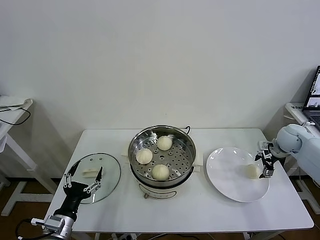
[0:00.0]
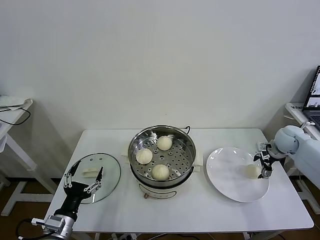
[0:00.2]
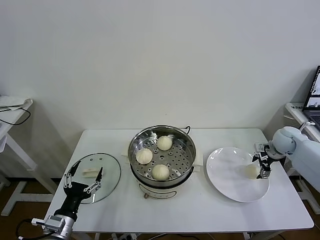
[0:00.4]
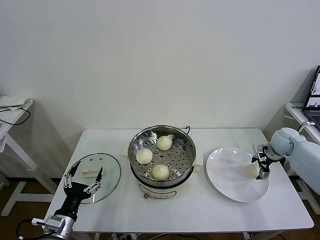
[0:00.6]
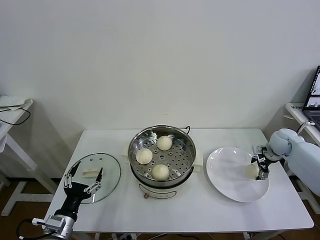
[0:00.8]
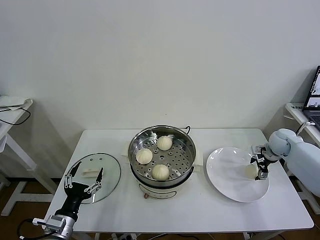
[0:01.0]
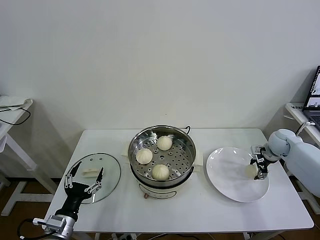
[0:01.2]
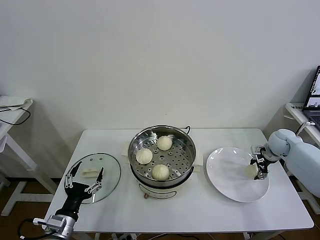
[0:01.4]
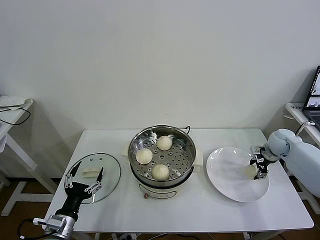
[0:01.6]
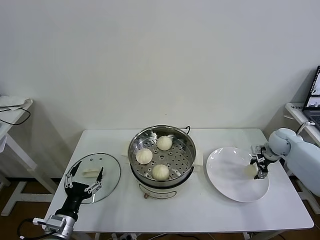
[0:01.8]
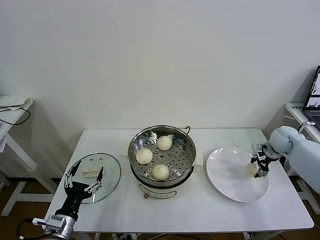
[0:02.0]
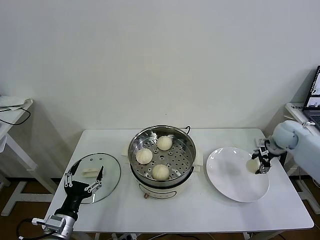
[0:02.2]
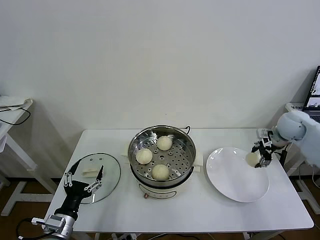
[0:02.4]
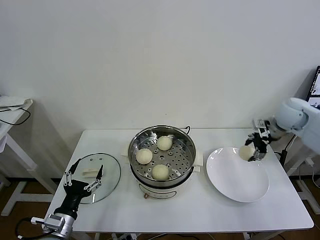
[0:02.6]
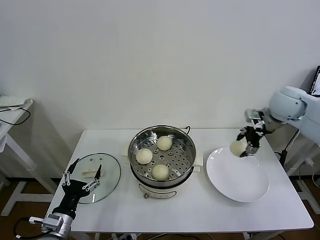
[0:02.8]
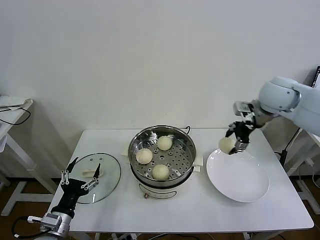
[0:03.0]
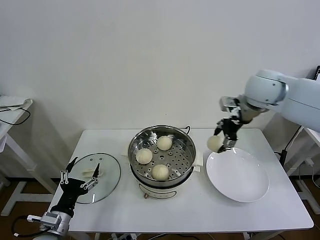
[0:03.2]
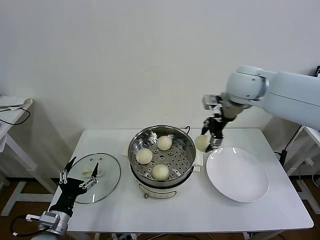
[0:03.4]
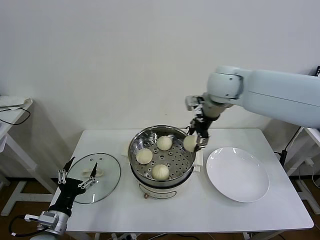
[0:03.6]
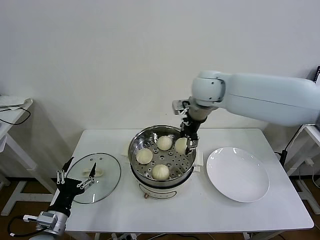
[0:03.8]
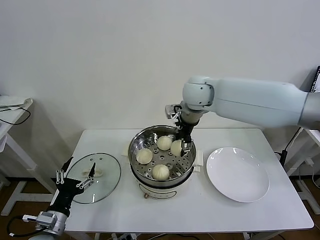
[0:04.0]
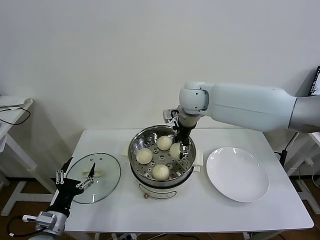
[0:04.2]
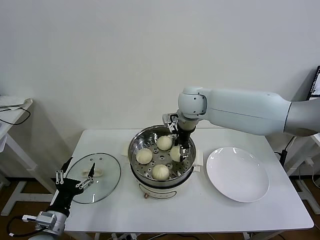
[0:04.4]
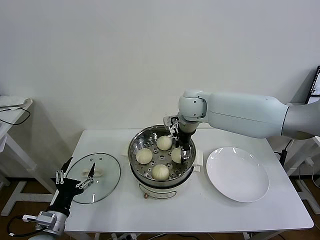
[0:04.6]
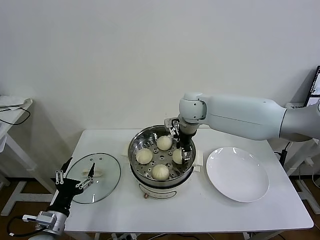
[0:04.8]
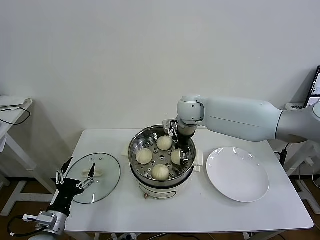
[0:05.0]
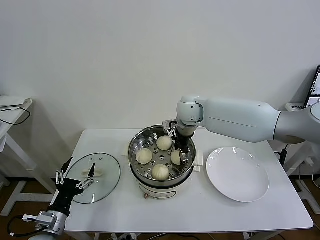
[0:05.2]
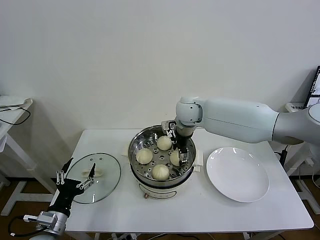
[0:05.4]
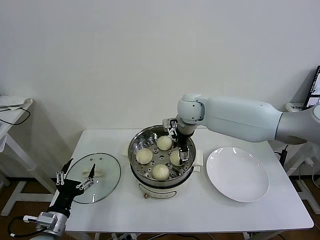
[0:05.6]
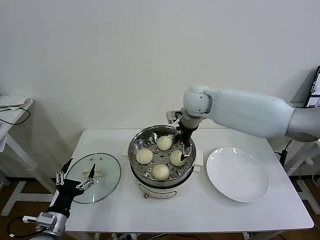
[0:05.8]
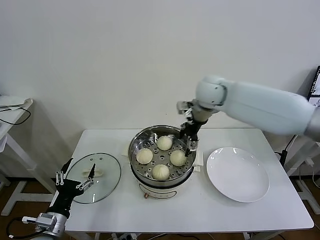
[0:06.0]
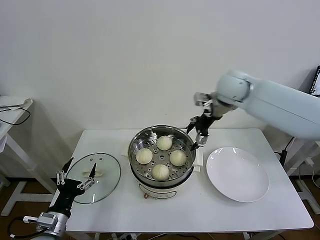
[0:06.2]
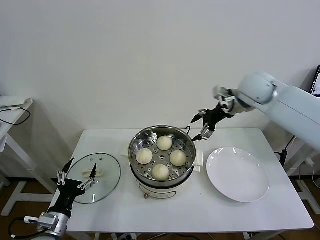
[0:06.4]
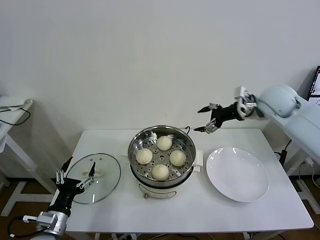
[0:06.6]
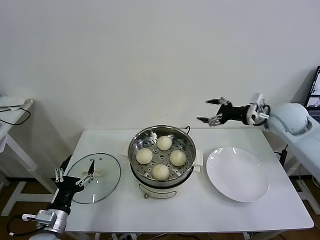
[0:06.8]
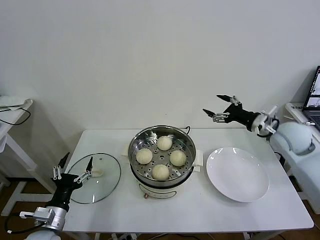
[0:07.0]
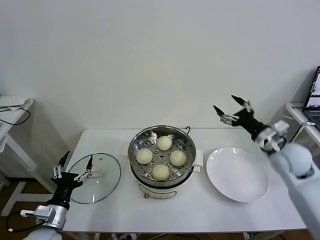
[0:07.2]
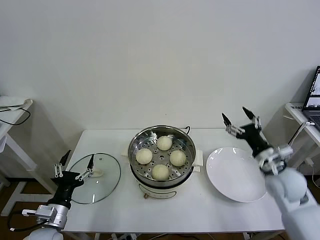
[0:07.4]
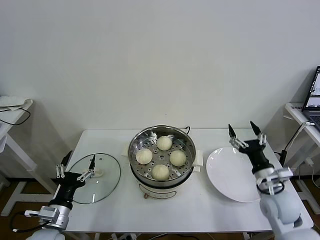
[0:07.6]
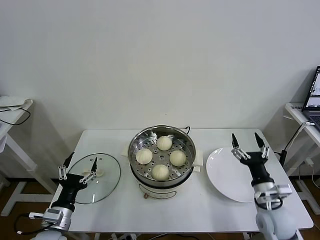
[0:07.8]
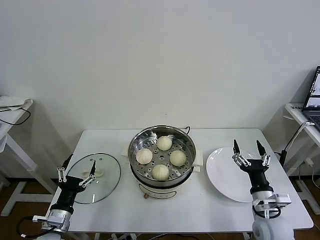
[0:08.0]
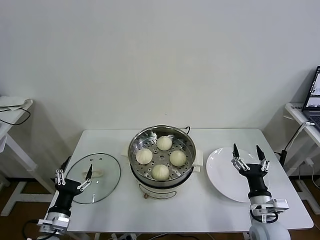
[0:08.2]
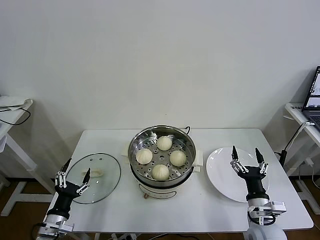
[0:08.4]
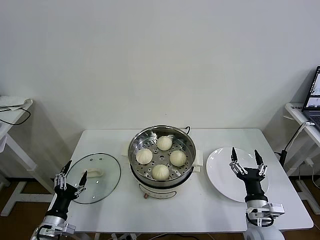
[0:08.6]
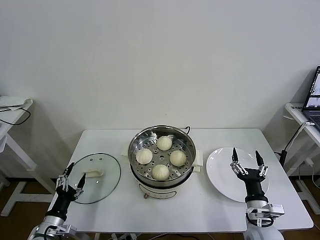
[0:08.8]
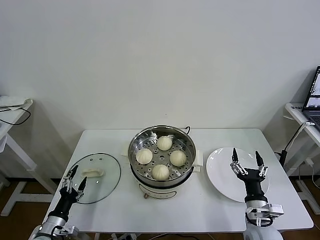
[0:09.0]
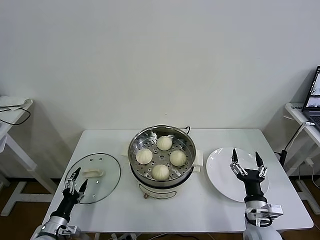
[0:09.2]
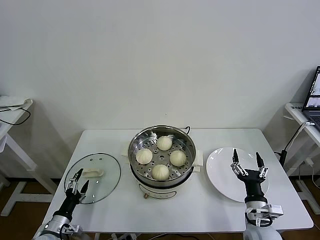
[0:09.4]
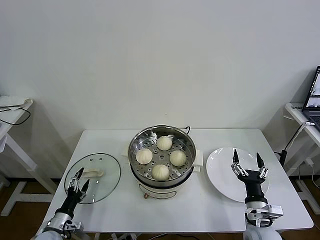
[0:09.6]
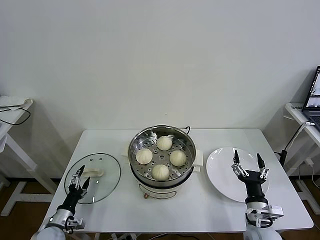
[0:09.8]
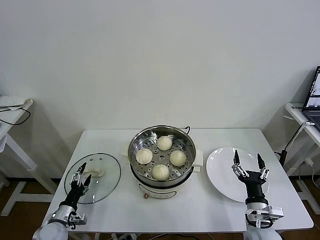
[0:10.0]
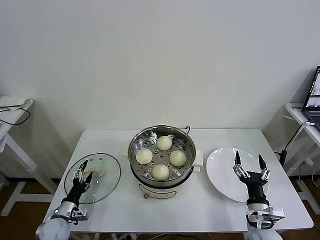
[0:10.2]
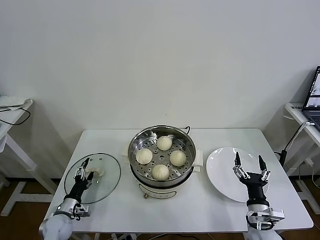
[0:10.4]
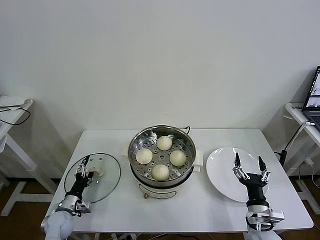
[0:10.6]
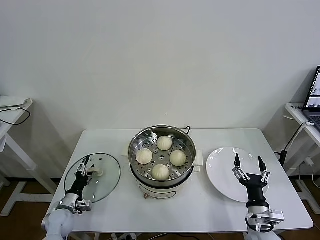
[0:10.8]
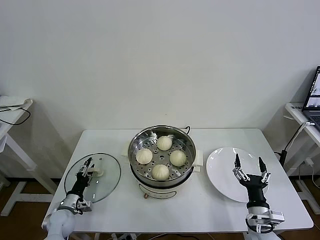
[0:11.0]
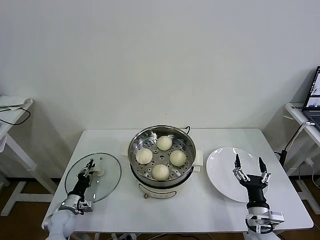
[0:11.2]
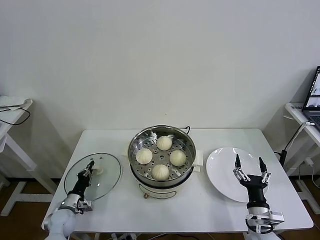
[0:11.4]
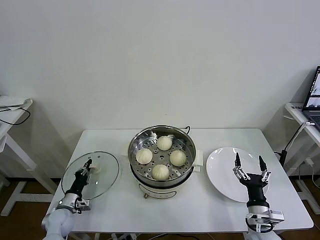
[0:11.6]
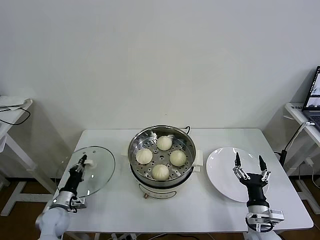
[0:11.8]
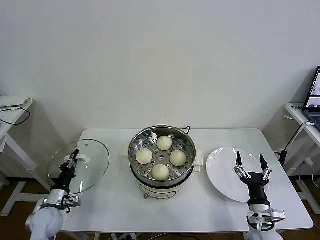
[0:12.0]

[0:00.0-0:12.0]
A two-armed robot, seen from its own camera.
Task of the whole recording: take steamed baozi put them in steamer then cover it.
Step, 0:01.6 to 0:05.6: Place the baozi on the steamer with right gripper.
Step, 0:05.8 to 0:11.6: Grasp the pot lid with left gripper.
0:00.0 to 0:01.6: The right gripper closes up.
0:01.6 to 0:03.0: The right gripper shifts about 30 cm upward and to the left.
0:03.0 to 0:04.4: The right gripper is displaced to the left by approximately 20 cm.
0:04.4 to 0:06.0: The right gripper goes about 5 cm to the right, and opens its fingers.
0:06.0 to 0:07.6: The right gripper is displaced backward, downward and to the right by about 40 cm.
0:07.6 to 0:09.0: The right gripper is displaced downward and backward by about 10 cm. Meanwhile the left gripper travels downward and to the left by approximately 10 cm.
0:09.0 to 0:10.4: The left gripper heads forward, covering roughly 10 cm.
0:10.4 to 0:12.0: The left gripper goes roughly 5 cm upward, and closes its fingers.

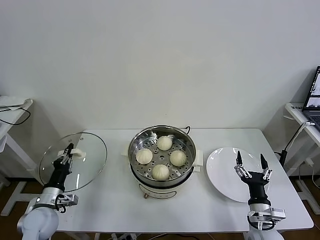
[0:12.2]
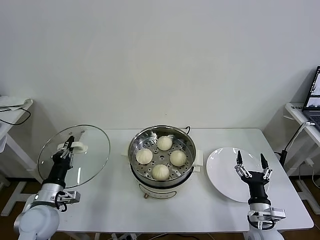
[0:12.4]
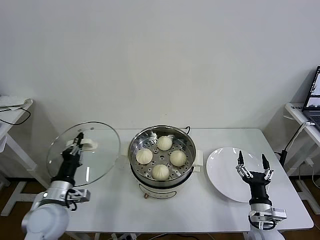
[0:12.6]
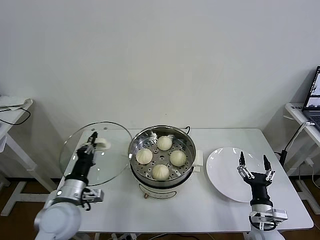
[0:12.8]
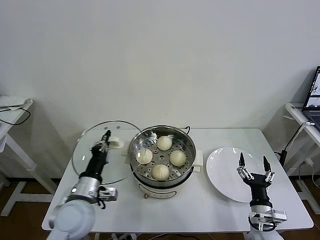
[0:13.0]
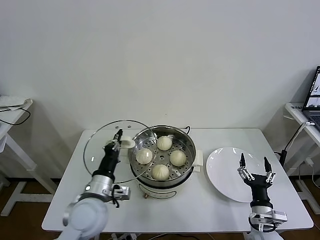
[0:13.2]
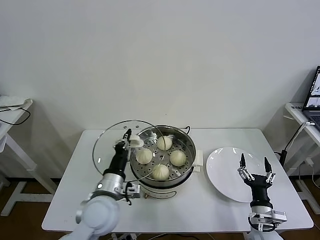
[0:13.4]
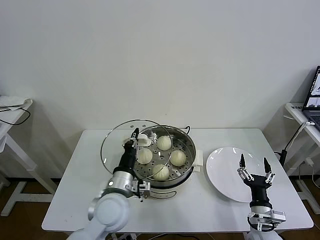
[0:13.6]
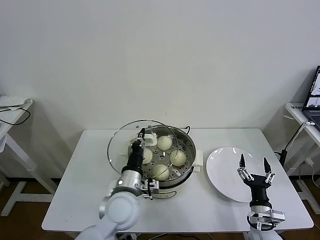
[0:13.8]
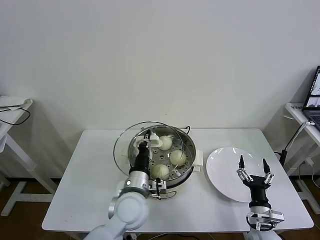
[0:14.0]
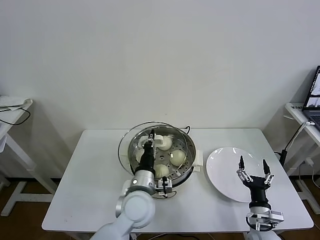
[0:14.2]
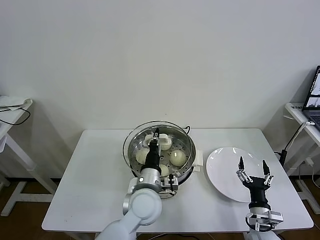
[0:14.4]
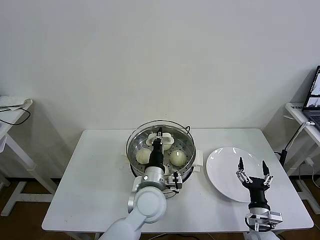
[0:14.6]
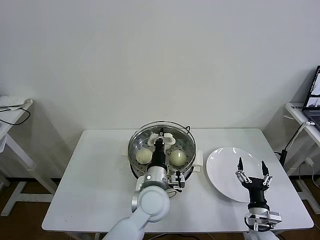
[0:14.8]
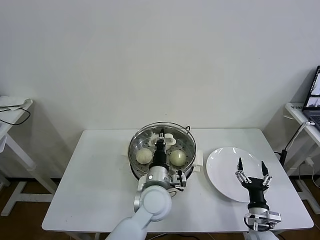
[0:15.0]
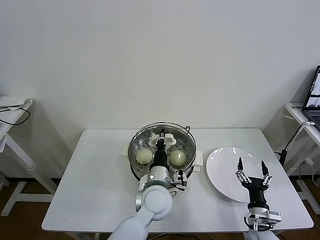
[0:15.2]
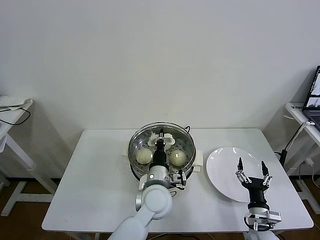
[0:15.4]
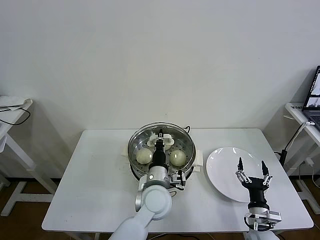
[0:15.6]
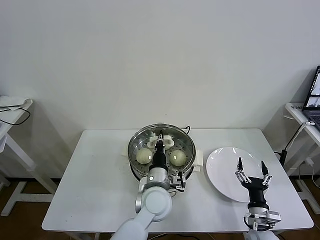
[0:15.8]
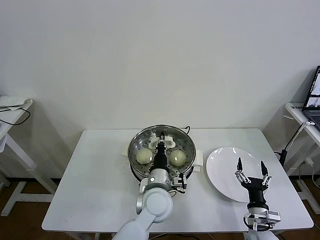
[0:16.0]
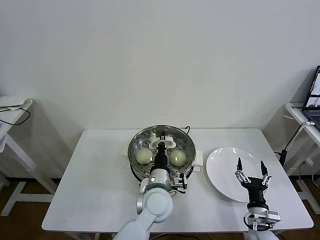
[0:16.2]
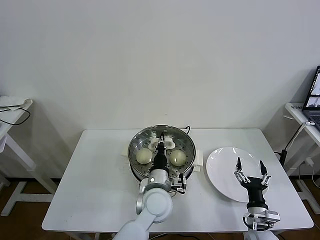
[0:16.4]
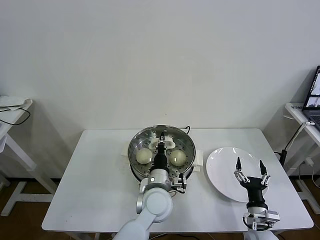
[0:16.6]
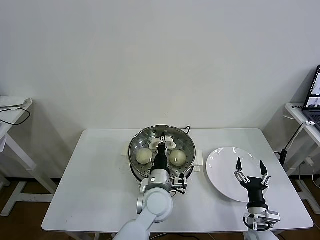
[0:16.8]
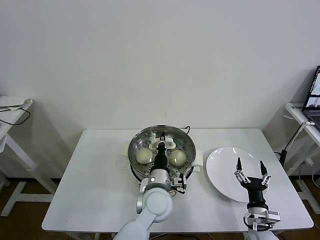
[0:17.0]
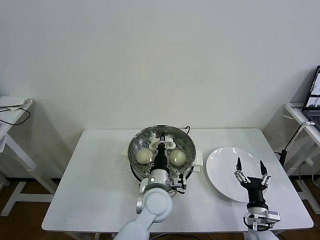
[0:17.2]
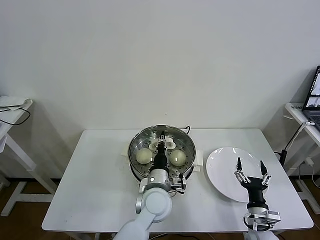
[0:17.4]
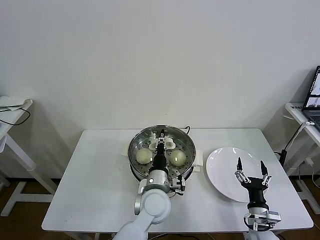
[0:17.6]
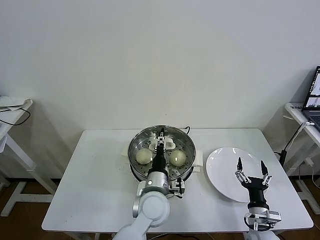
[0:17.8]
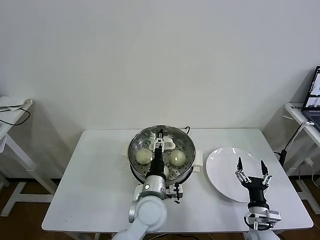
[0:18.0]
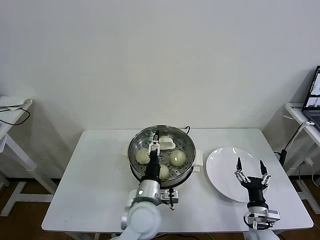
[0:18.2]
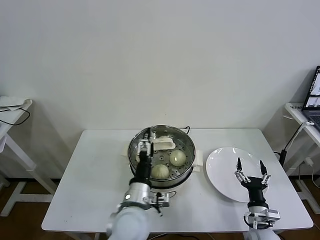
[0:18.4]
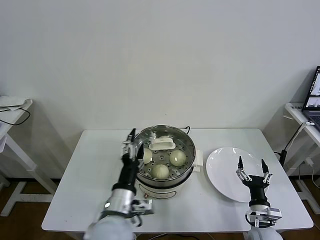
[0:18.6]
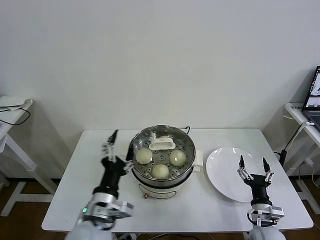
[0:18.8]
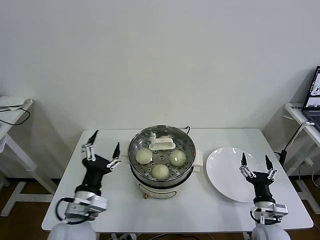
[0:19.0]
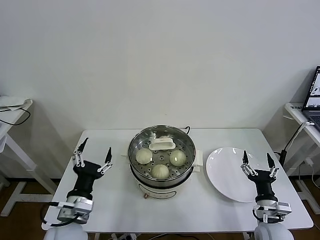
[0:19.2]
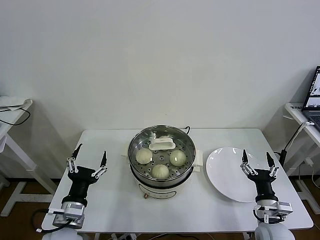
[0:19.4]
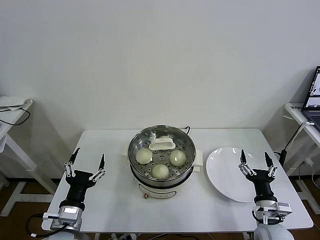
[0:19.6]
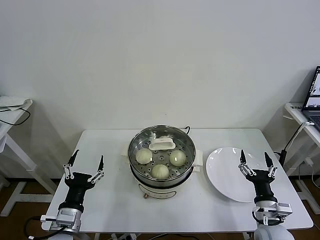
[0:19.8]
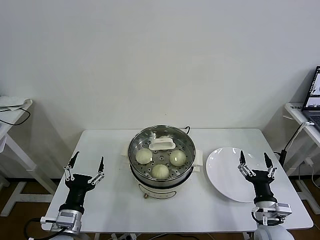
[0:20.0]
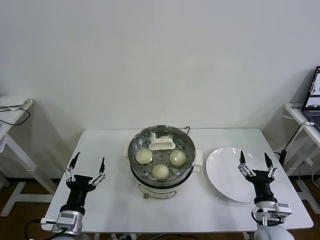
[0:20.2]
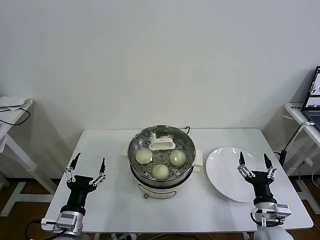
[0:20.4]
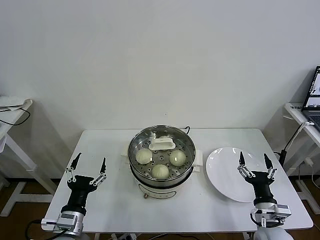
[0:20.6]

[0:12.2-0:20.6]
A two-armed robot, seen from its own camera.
Task of the whole recording: take steamed baozi put them in steamer then cover it.
Step, 0:12.2 to 0:18.2: Place the pot lid on the steamer with left gripper.
0:12.2 to 0:13.6: The left gripper shifts approximately 25 cm to the right and upward.
0:13.6 to 0:15.0: The left gripper moves to the right, approximately 10 cm.
0:15.0 to 0:16.4: The grippers move only a little.
0:16.4 to 0:17.8: The left gripper opens up.
0:17.8 to 0:19.2: The left gripper travels to the left and backward by about 25 cm, and opens.
0:19.2 to 0:20.6: The left gripper is displaced downward by some 5 cm.
